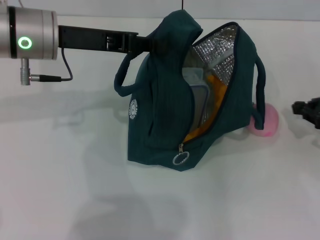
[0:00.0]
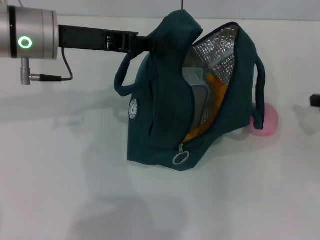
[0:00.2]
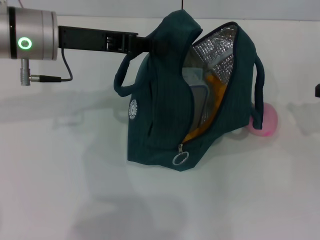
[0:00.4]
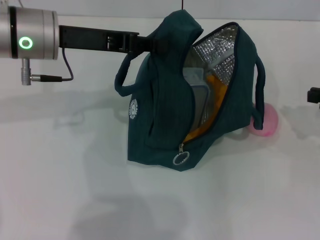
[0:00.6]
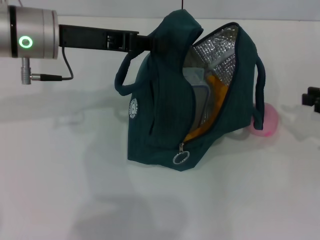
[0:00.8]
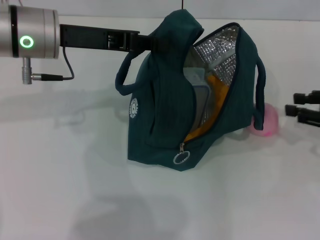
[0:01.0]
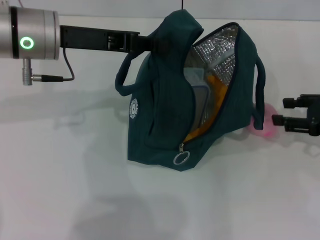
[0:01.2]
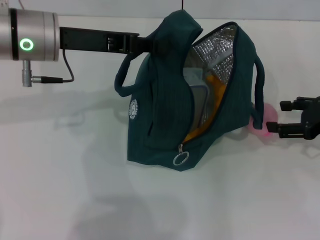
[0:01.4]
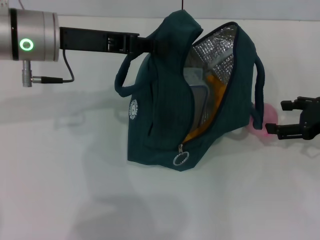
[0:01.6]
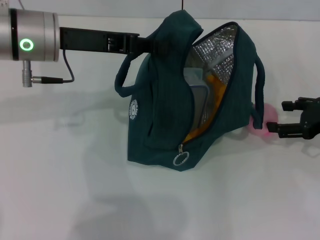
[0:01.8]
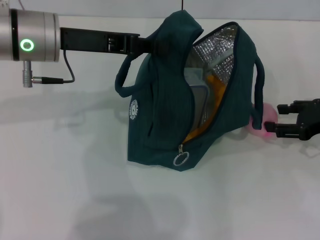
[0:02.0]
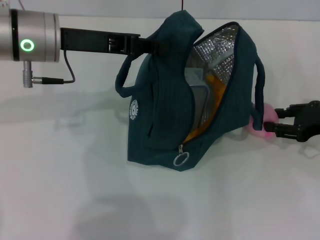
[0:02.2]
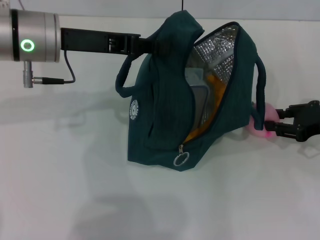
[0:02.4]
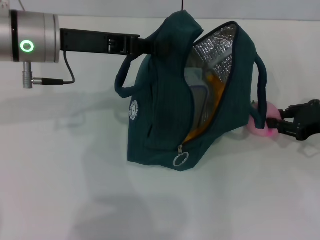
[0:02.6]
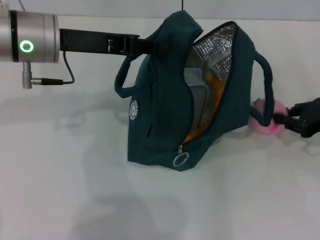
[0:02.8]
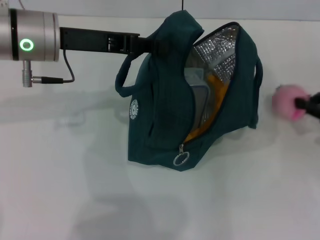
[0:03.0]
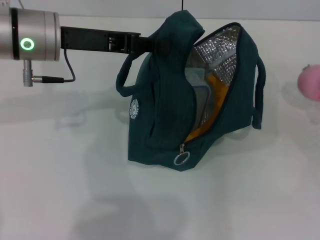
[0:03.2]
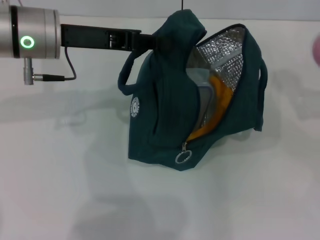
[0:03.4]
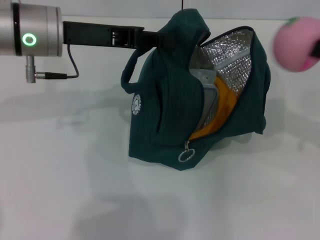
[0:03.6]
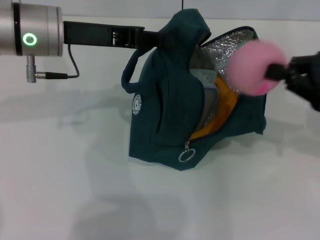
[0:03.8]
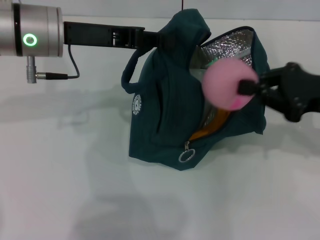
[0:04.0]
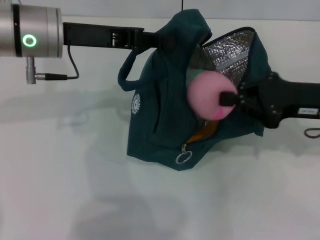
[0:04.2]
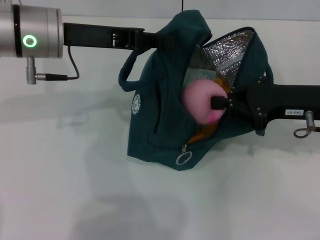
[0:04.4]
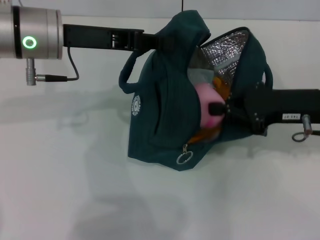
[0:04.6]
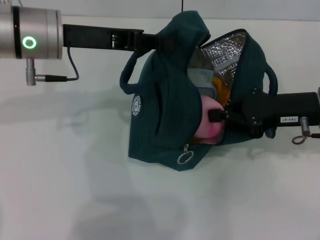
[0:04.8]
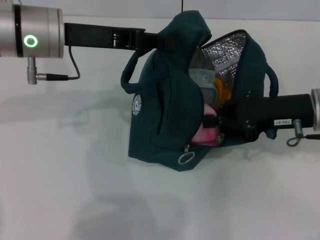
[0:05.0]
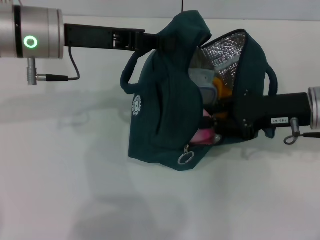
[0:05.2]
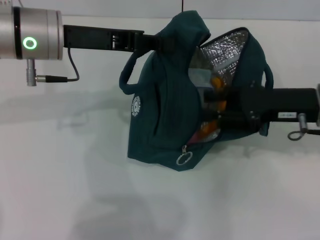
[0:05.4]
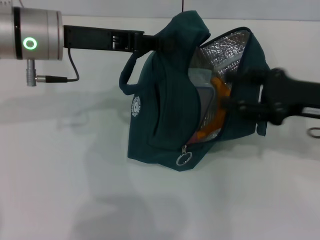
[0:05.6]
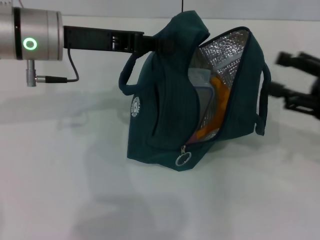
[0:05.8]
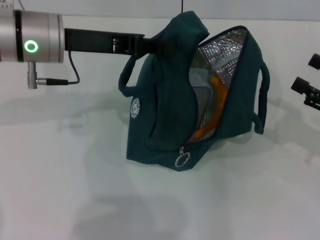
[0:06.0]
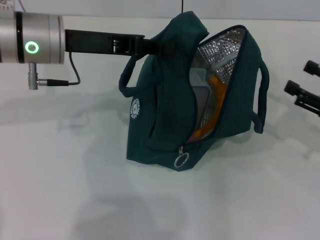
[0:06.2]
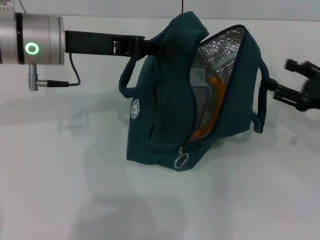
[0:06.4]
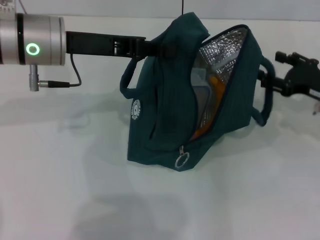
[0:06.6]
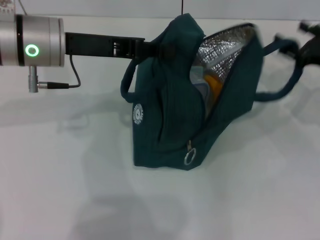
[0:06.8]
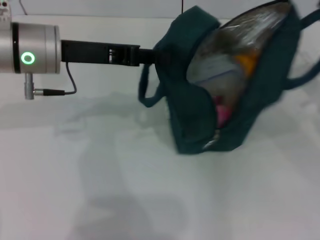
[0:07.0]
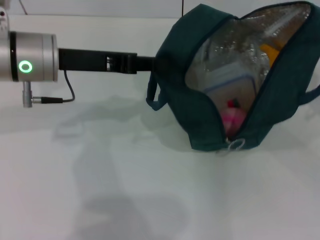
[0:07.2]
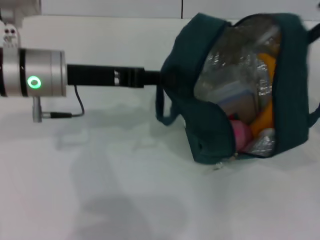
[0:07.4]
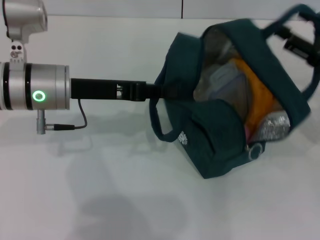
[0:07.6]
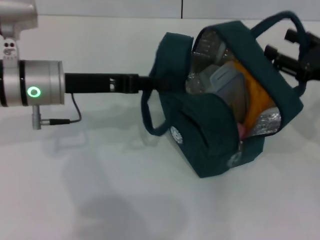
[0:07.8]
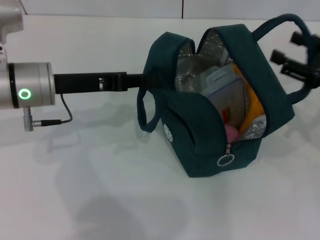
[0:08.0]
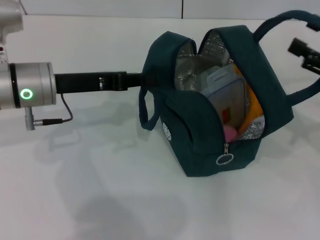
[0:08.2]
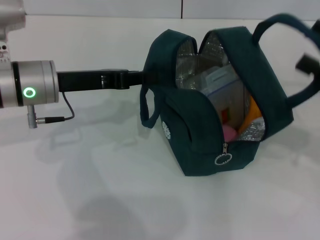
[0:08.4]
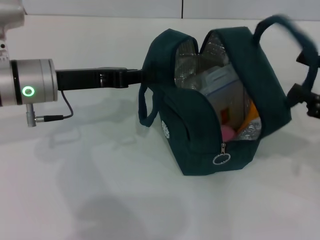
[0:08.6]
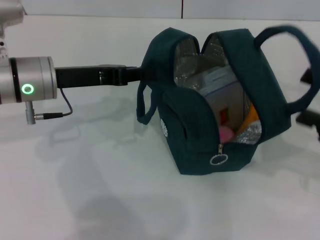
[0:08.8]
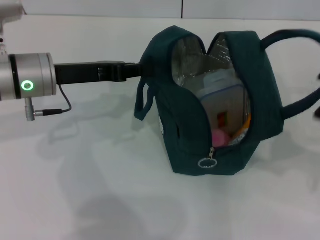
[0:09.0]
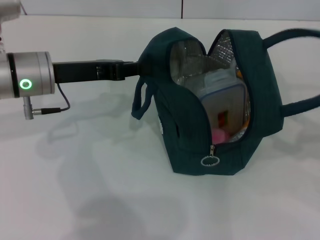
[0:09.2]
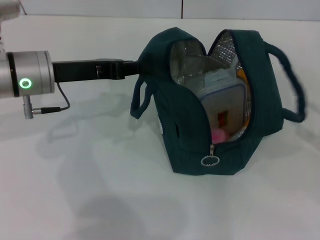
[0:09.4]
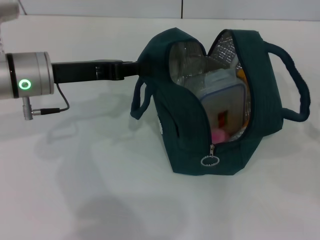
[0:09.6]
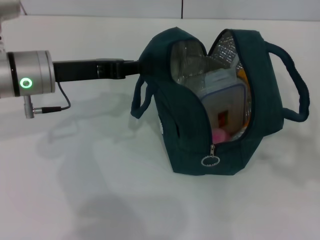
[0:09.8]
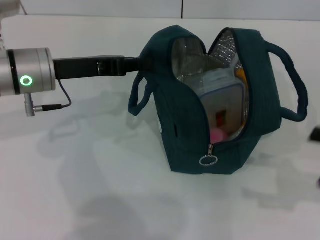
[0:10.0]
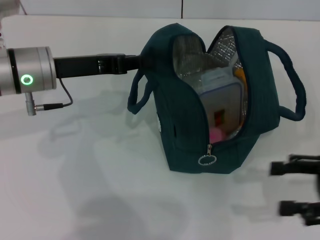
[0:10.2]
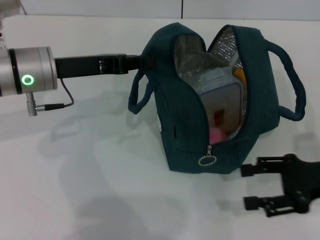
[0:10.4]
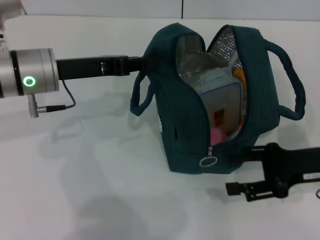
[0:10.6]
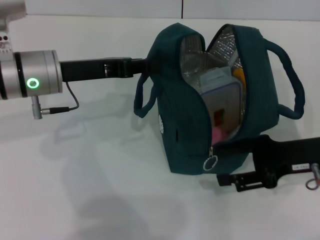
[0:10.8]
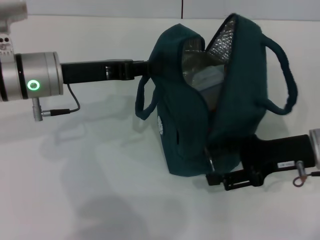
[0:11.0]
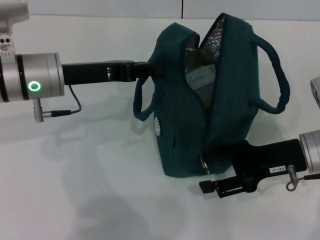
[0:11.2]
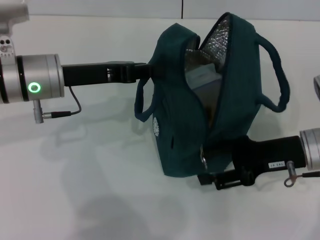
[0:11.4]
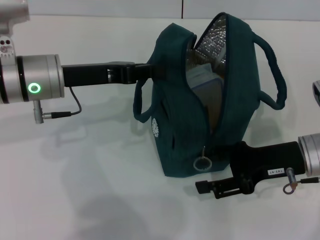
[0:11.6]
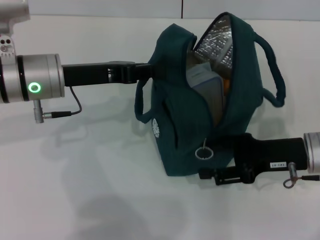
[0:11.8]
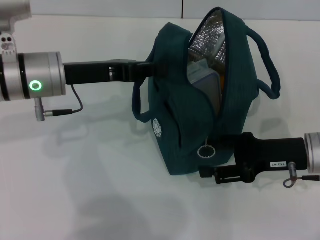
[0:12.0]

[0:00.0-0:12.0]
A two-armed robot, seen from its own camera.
Step, 0:00.0 to 0:02.4: Grab the peach with your right hand.
Step, 0:05.4 to 0:07.8: Hold the lunch bag with your right hand.
0:00.0 to 0:01.6: The right gripper opens its fingers.
0:01.6 to 0:03.0: The right gripper closes up.
0:03.0 to 0:04.4: The right gripper goes about 10 cm to the left.
0:04.4 to 0:06.0: The right gripper goes roughly 10 cm to the right and backward, and opens its fingers.
0:06.0 to 0:07.6: The right gripper travels forward by roughly 5 cm. The left gripper travels downward by some 5 cm.
0:07.6 to 0:09.0: The right gripper is displaced backward by some 10 cm.
0:09.0 to 0:10.4: The right gripper moves to the left, roughly 5 cm.
0:10.4 to 0:12.0: The right gripper heads to the left, covering about 5 cm.

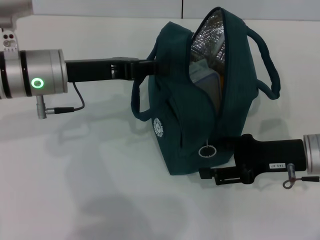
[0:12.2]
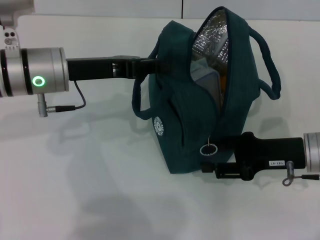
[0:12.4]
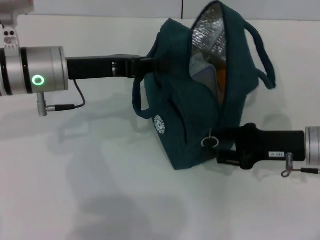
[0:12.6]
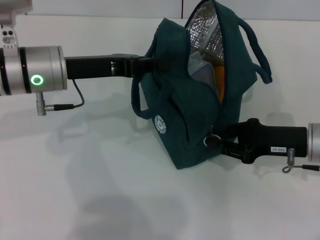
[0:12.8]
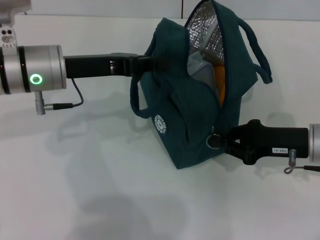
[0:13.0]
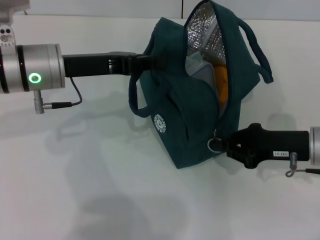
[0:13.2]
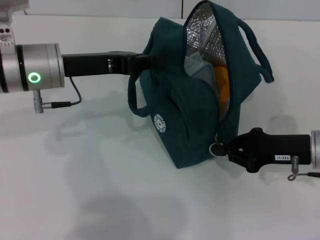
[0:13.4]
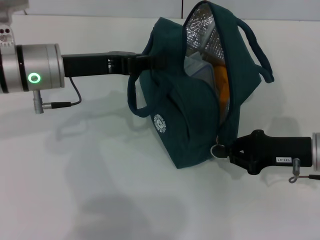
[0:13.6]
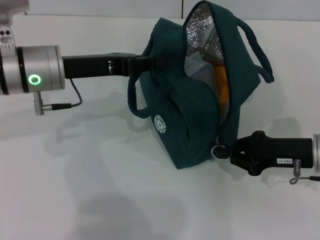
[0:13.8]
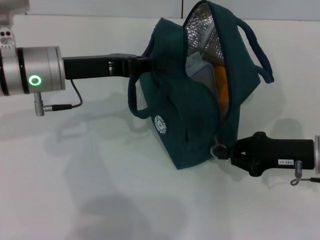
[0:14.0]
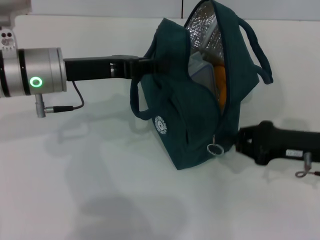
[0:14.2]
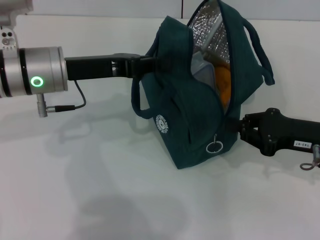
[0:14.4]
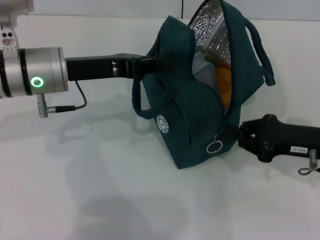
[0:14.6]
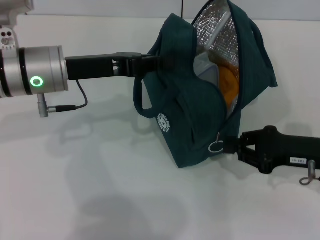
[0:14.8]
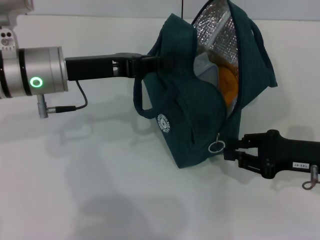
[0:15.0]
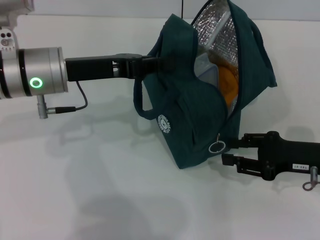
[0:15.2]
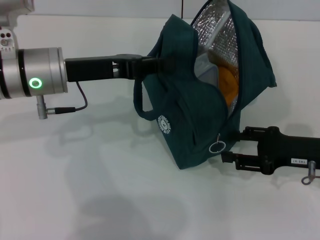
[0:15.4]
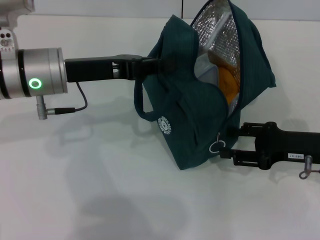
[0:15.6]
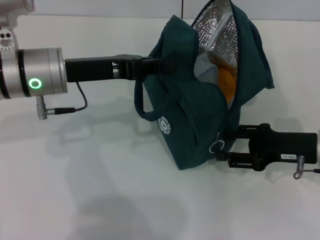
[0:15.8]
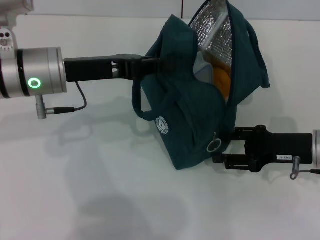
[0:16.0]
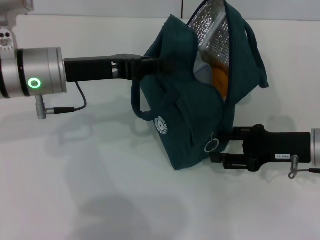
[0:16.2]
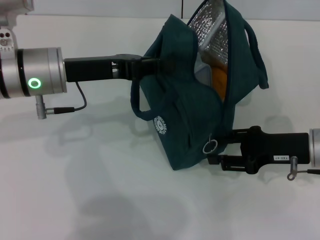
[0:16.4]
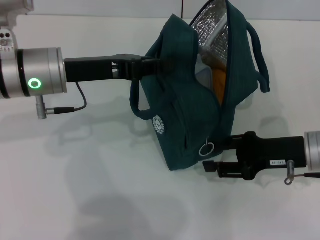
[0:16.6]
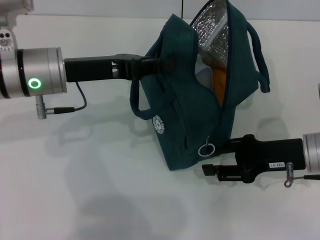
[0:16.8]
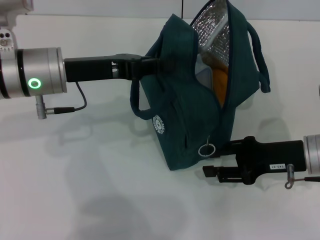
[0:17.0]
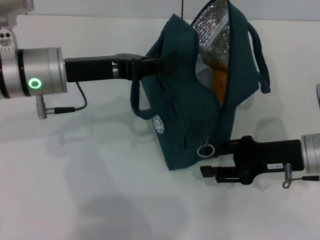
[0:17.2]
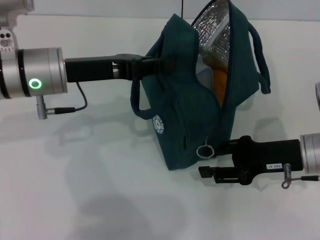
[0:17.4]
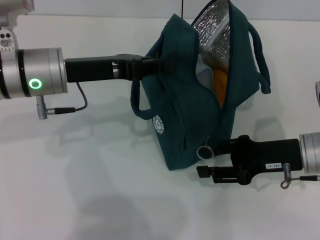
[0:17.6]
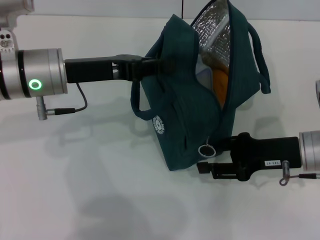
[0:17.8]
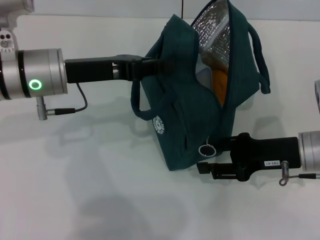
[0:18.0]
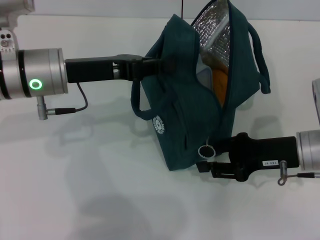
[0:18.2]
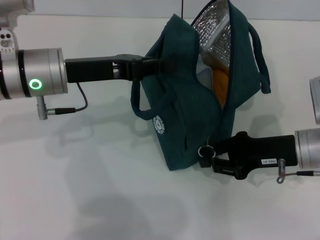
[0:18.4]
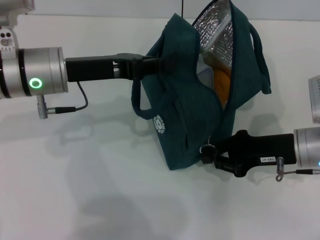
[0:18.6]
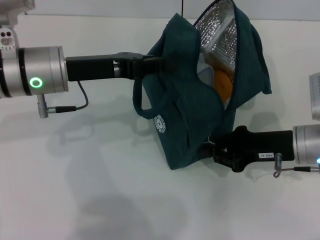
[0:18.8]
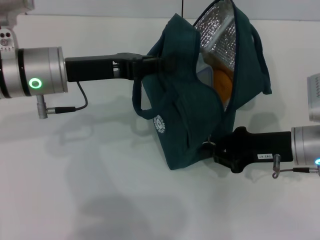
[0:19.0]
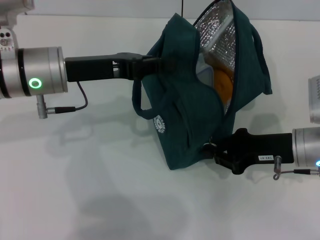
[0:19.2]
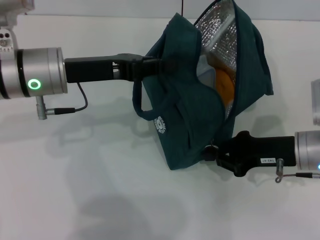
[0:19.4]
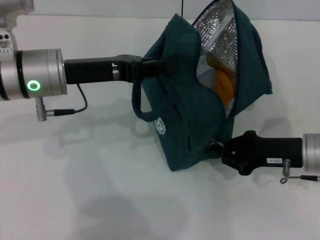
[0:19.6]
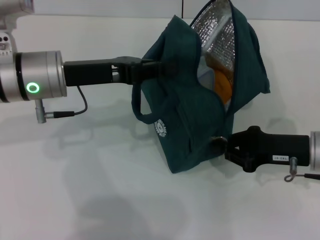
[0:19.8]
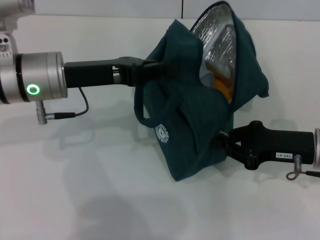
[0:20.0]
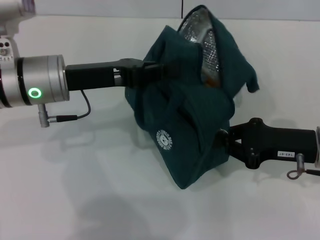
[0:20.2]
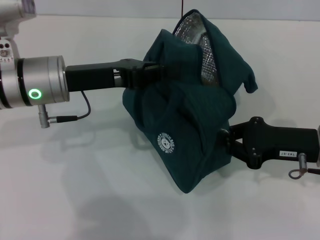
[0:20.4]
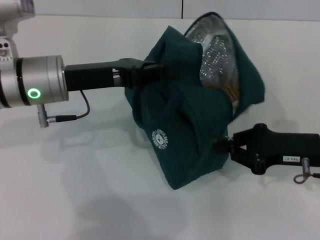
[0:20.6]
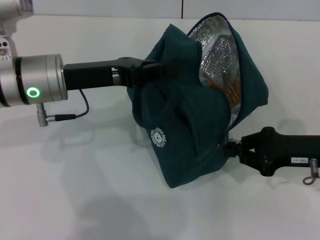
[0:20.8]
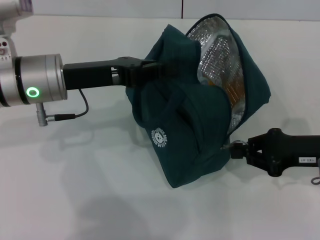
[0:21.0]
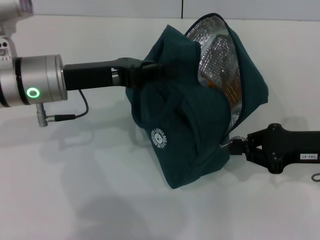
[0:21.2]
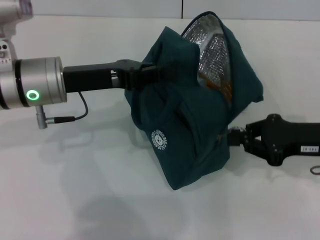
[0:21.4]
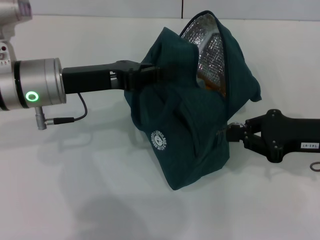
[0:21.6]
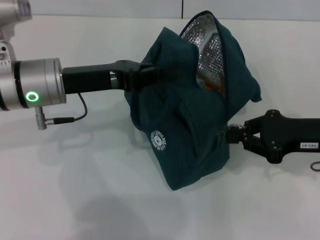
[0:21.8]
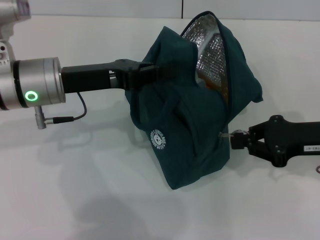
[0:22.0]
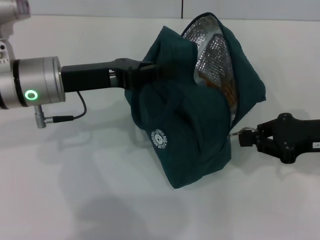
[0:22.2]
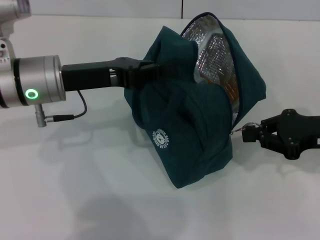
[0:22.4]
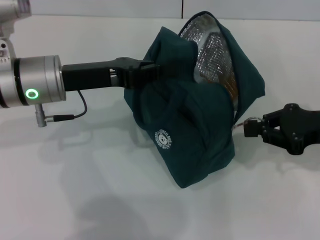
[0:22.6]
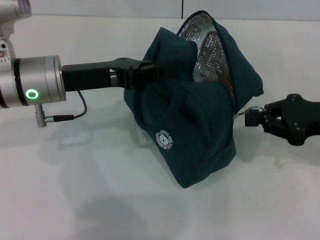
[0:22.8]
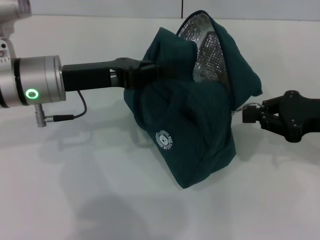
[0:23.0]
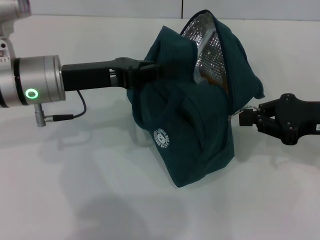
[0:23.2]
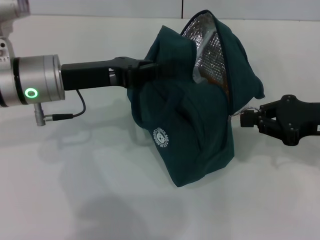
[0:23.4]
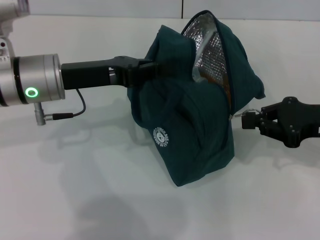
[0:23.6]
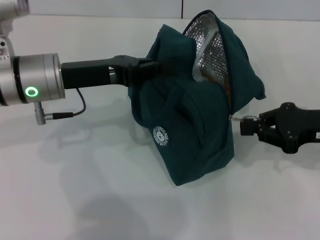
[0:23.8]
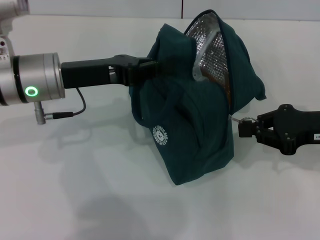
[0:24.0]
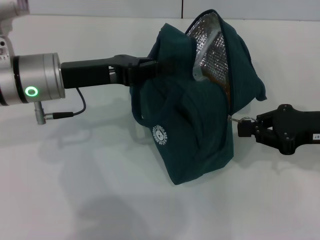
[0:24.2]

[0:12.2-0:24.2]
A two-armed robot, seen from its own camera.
0:12.2 to 0:13.8: The right gripper closes.
0:13.8 to 0:16.6: The grippers move only a little.
0:16.6 to 0:18.2: Both grippers stay about where they are.
0:18.2 to 0:19.8: The right gripper closes.
0:19.8 to 0:21.2: The grippers move only a little.
0:21.2 to 0:22.6: The grippers make only small movements.
0:22.6 to 0:24.2: Both grippers stay about where they are.
